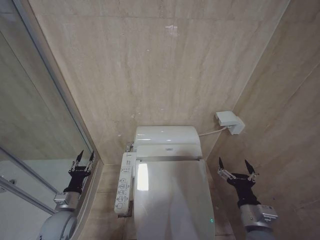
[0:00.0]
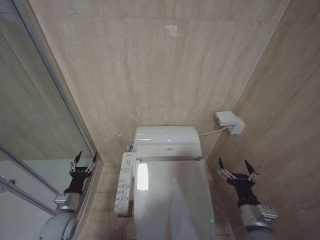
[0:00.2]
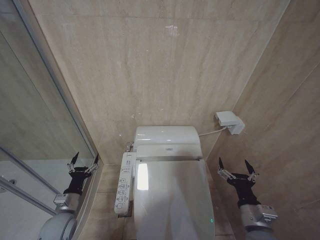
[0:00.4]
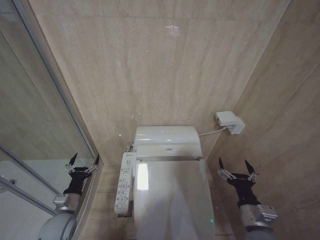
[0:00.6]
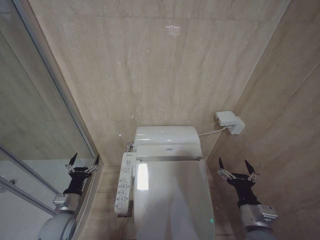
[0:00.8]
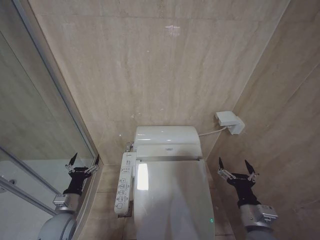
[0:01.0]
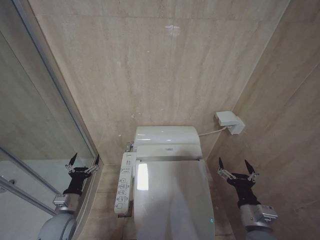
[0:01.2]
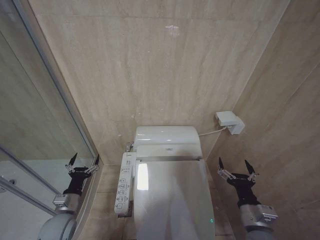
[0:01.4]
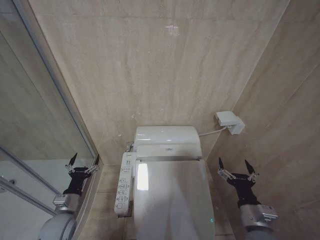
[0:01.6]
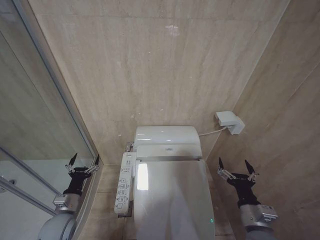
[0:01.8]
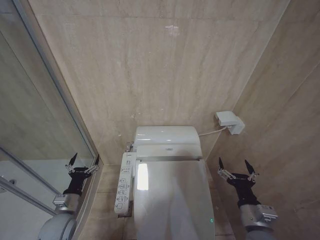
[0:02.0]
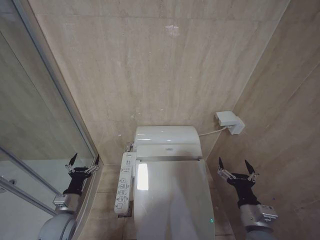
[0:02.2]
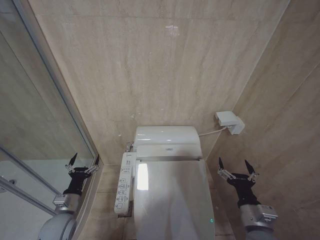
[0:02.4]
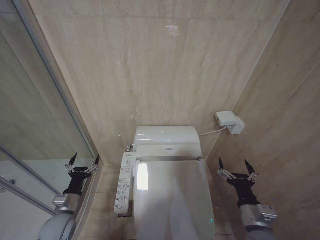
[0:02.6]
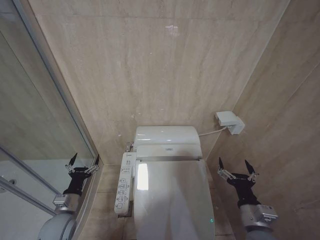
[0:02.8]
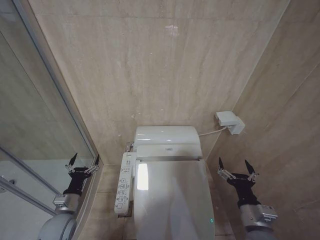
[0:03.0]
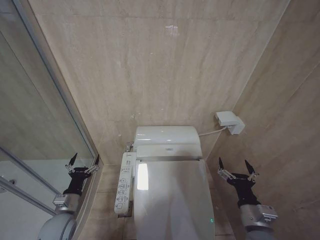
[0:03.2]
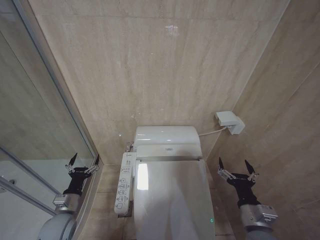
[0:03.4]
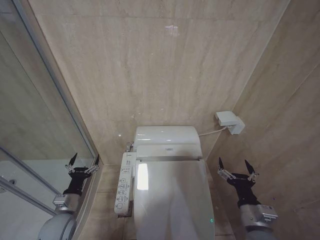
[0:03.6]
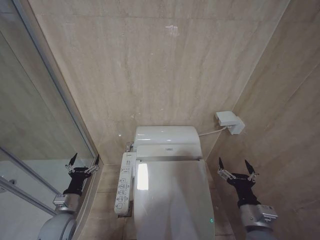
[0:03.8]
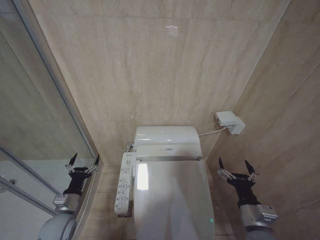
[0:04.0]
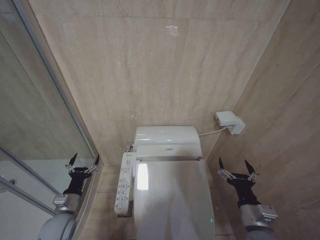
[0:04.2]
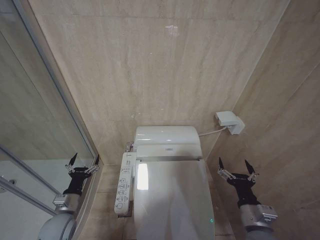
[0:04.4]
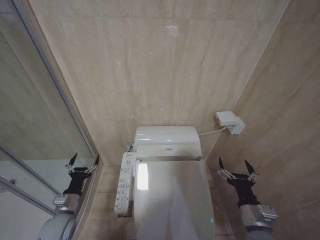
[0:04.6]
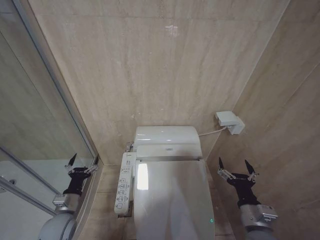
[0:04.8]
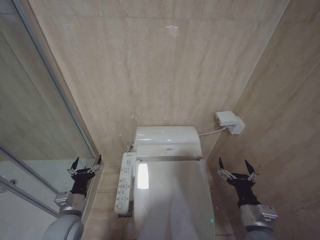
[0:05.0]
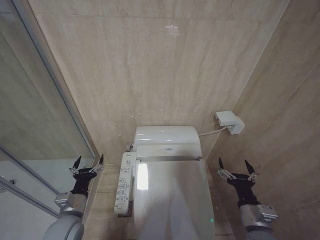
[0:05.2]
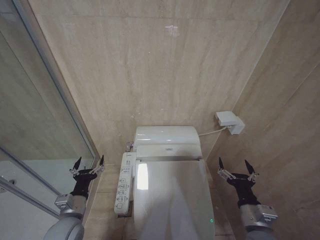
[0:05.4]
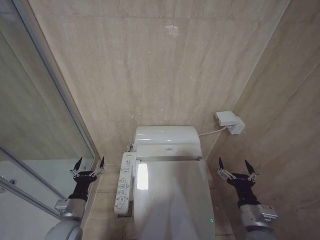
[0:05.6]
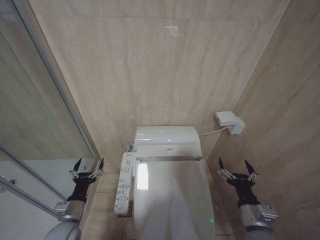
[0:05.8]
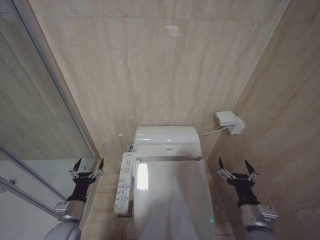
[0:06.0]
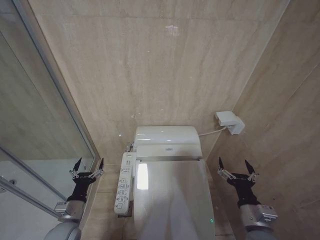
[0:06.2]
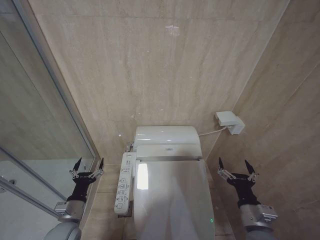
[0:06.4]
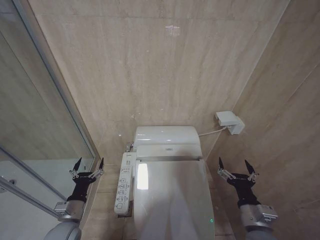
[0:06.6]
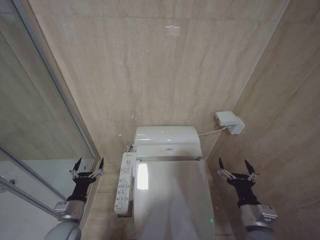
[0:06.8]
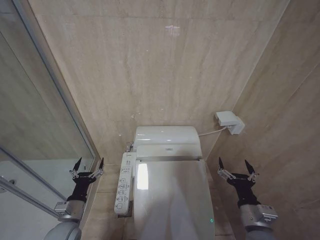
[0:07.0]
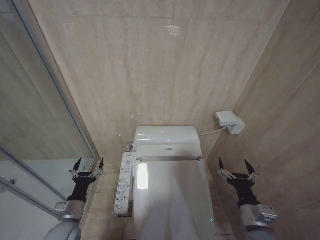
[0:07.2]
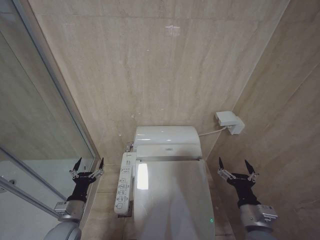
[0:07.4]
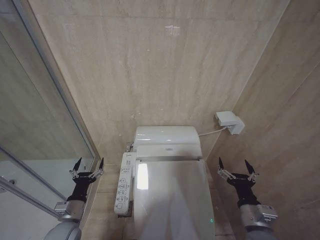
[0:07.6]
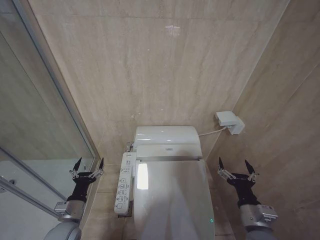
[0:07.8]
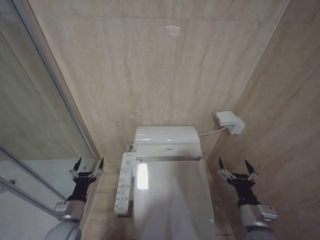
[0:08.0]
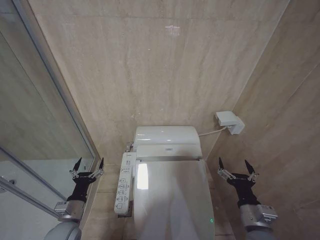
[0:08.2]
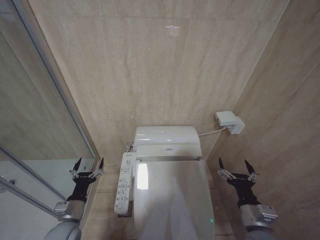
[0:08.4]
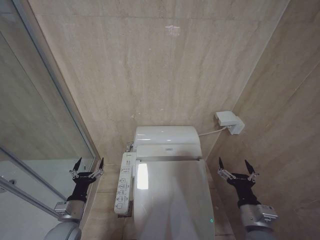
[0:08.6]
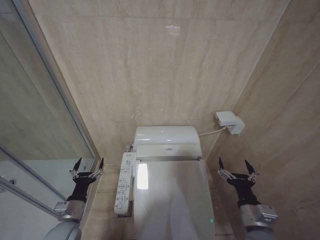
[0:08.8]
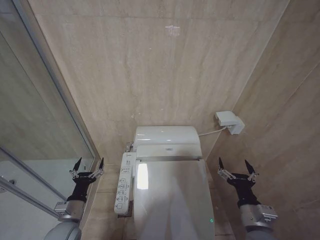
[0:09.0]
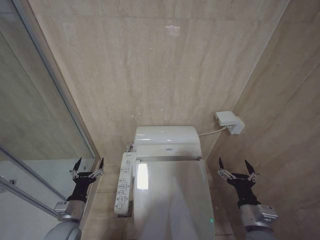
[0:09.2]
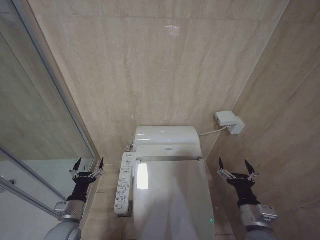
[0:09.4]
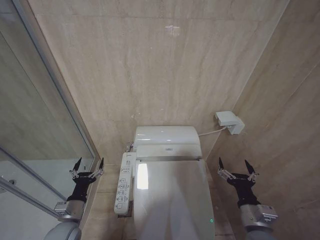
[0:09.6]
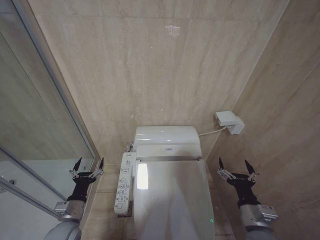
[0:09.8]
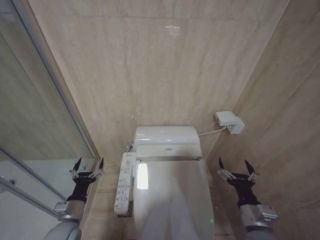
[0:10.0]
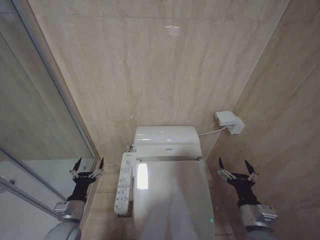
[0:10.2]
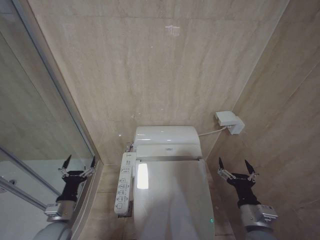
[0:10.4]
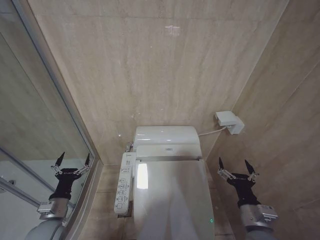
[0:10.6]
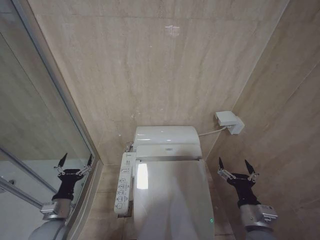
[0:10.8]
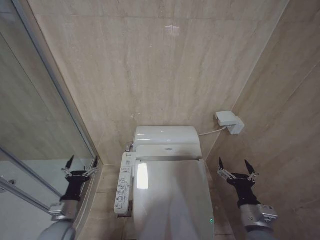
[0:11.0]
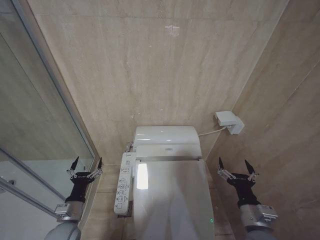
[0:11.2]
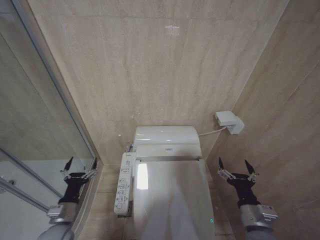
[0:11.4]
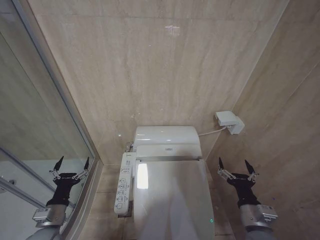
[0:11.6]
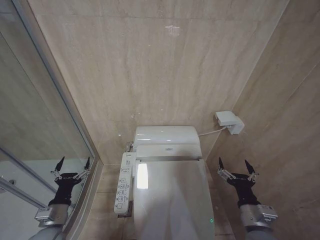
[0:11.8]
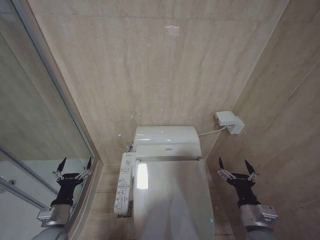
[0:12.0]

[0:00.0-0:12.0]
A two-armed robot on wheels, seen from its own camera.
Task of the whole recording: Open the toilet lid, clean the toilet bowl with a toilet brush, close the toilet lid, and flush.
0:00.0 to 0:01.6: The left gripper opens its fingers.
0:01.6 to 0:04.4: Both grippers stay about where they are.
0:06.0 to 0:10.4: Neither gripper changes place.
0:10.4 to 0:12.0: The grippers move only a little.

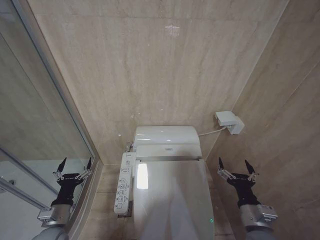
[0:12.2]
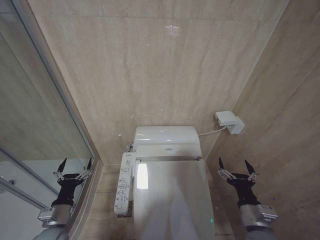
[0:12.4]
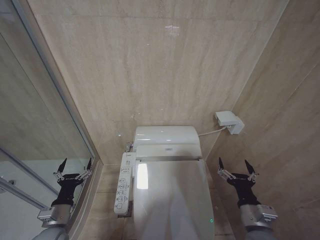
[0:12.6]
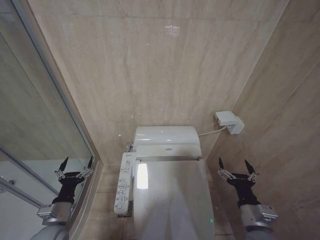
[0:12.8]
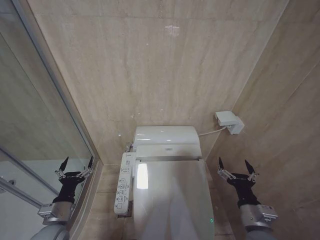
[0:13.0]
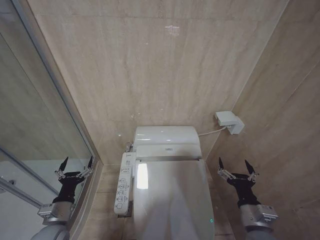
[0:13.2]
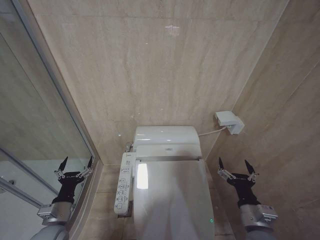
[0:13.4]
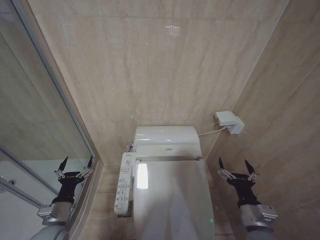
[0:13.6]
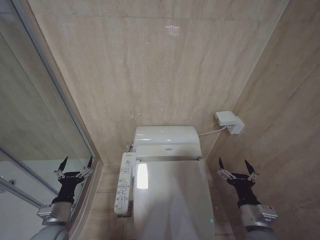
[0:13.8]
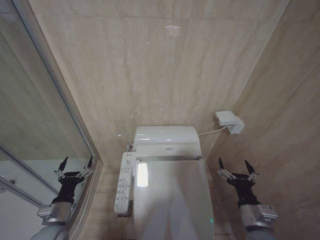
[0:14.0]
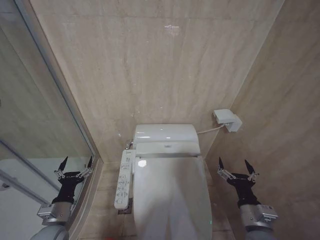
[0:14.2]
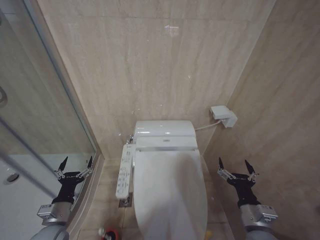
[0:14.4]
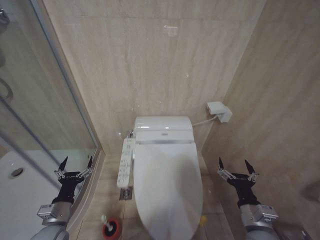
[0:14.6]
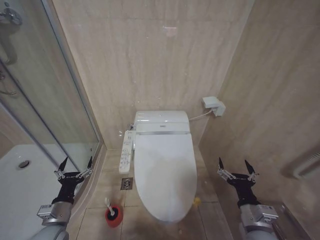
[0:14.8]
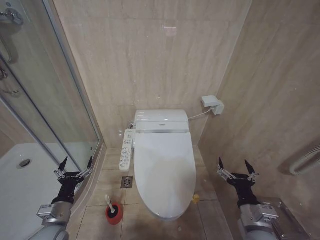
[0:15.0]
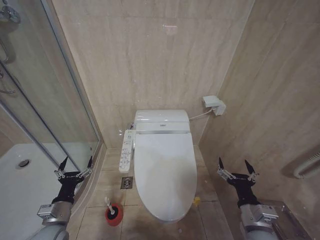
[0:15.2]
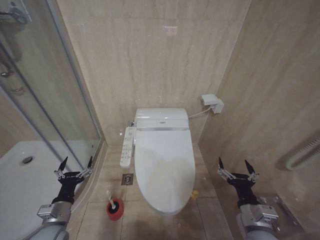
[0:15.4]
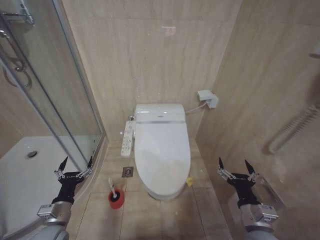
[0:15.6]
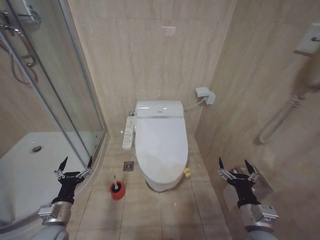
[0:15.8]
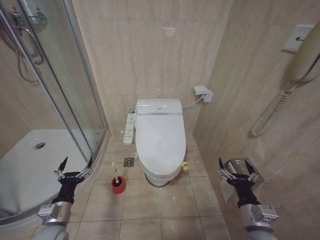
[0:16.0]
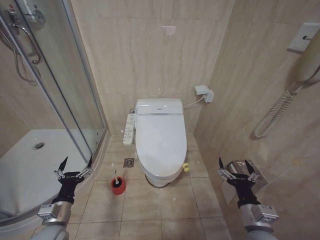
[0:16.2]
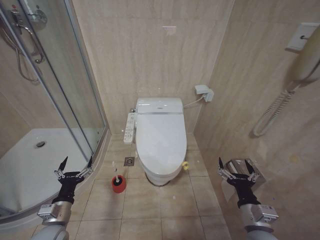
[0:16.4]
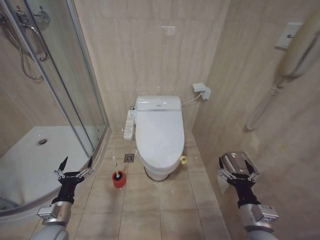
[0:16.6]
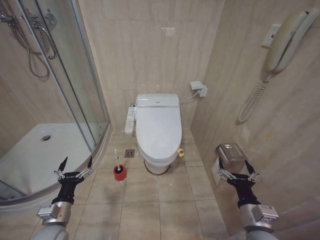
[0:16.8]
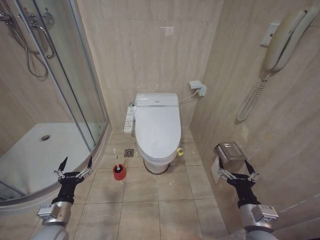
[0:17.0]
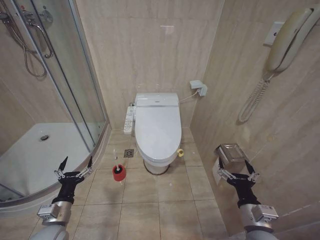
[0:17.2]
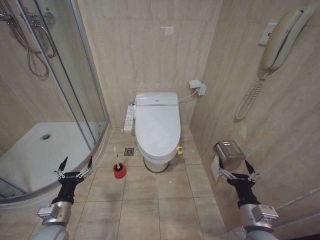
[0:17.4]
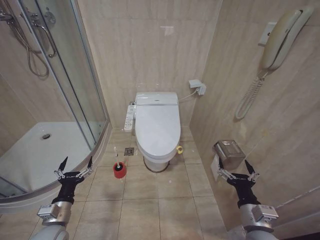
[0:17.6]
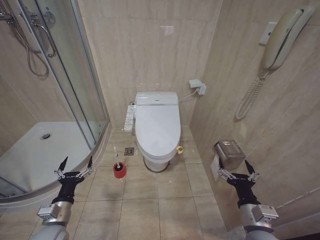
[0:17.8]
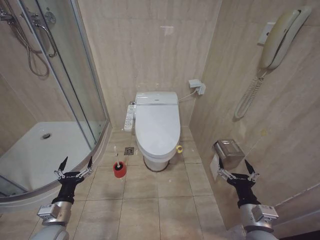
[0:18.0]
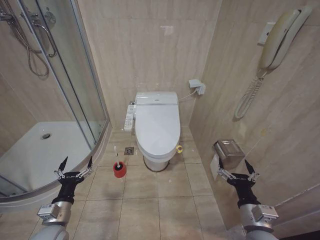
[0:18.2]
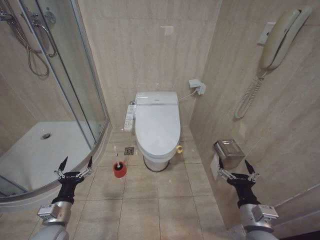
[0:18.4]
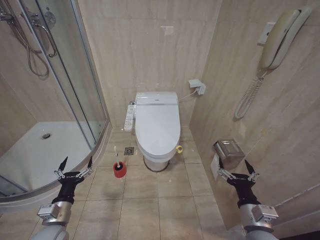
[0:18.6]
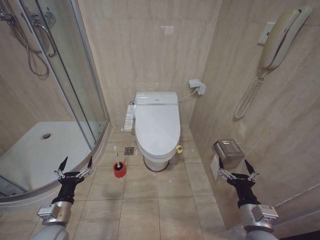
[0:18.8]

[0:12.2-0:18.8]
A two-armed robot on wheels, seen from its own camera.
Task of the whole recording: Open the toilet lid, clean the toilet bowl with a toilet brush, close the toilet lid, and flush.
0:12.2 to 0:13.8: Both grippers stay put.
0:17.2 to 0:18.8: Both grippers stay about where they are.
